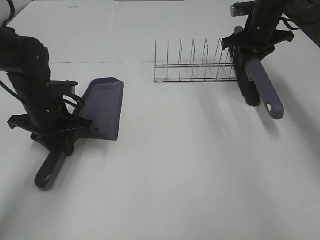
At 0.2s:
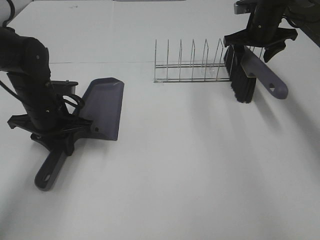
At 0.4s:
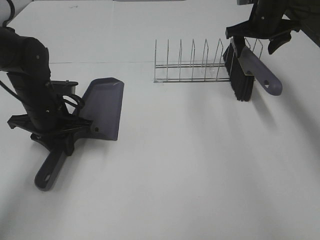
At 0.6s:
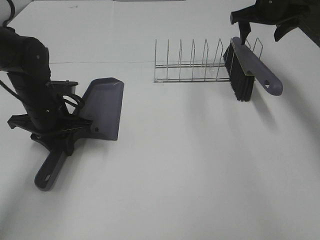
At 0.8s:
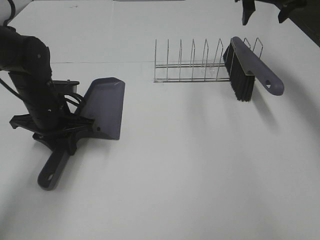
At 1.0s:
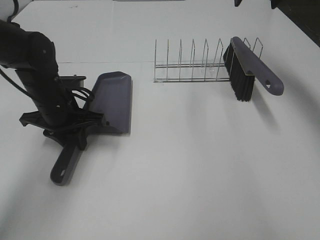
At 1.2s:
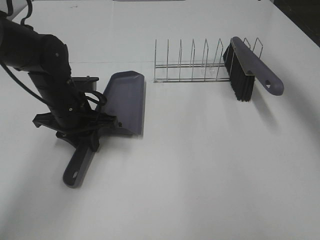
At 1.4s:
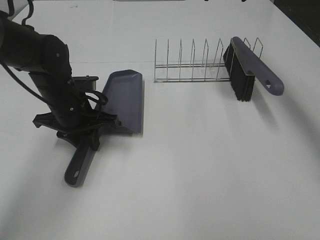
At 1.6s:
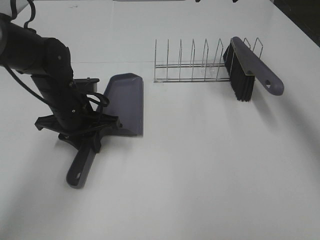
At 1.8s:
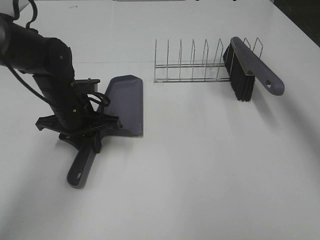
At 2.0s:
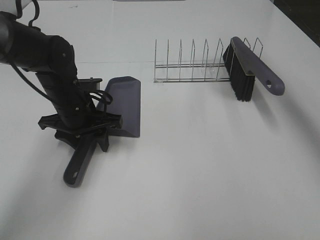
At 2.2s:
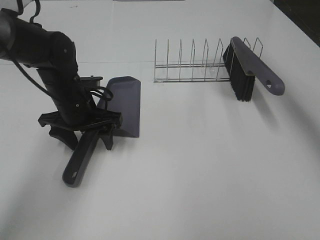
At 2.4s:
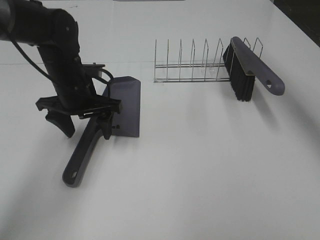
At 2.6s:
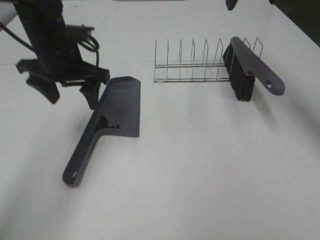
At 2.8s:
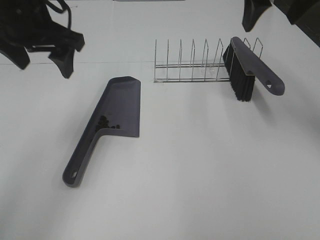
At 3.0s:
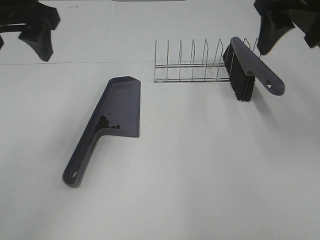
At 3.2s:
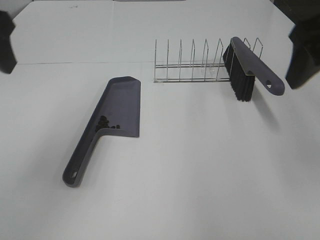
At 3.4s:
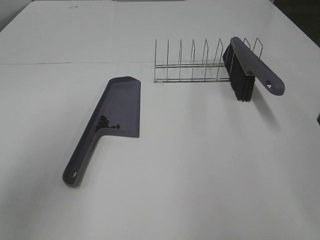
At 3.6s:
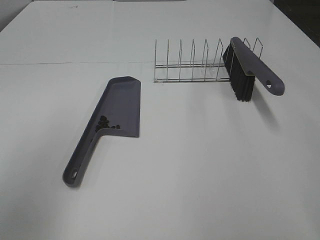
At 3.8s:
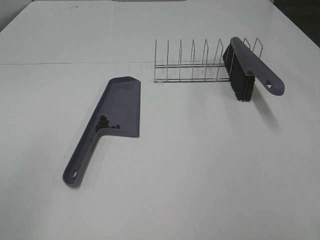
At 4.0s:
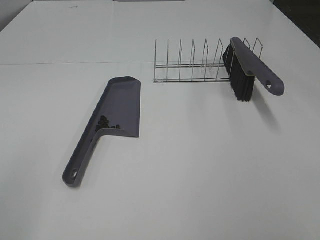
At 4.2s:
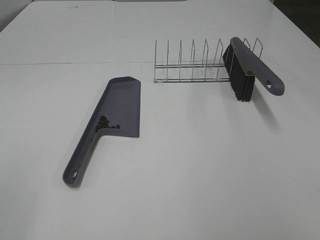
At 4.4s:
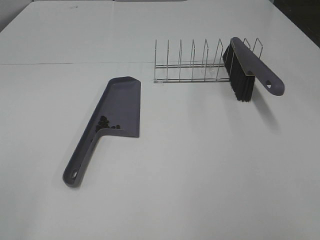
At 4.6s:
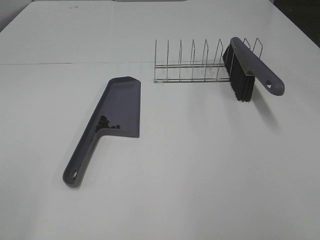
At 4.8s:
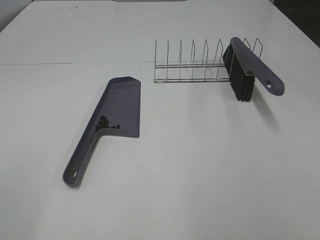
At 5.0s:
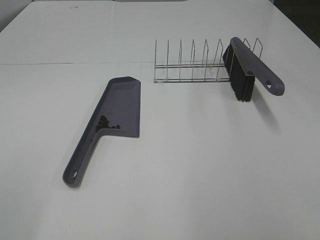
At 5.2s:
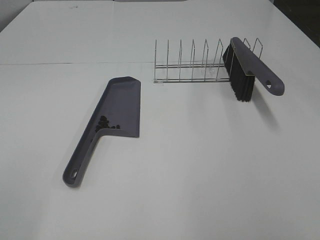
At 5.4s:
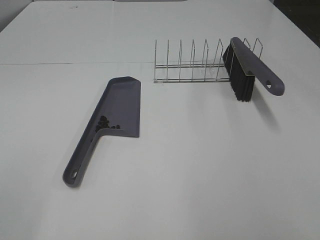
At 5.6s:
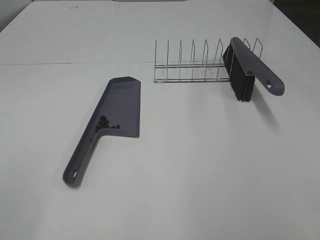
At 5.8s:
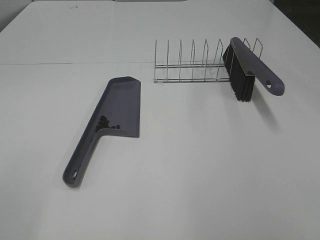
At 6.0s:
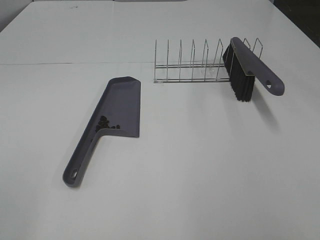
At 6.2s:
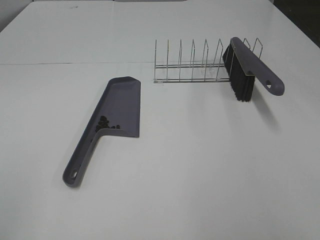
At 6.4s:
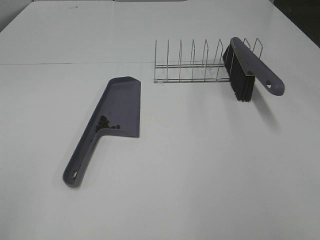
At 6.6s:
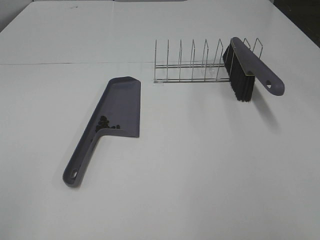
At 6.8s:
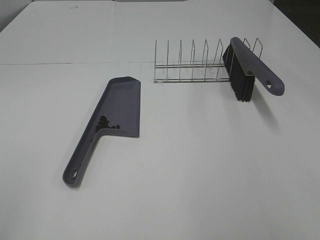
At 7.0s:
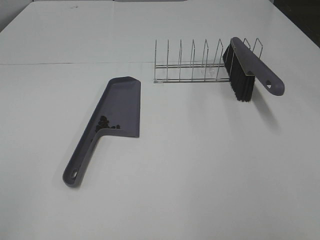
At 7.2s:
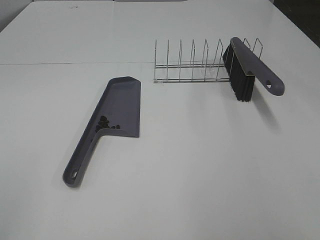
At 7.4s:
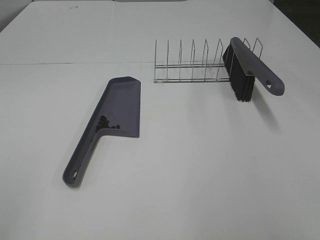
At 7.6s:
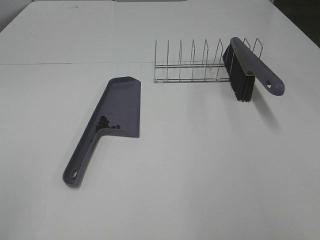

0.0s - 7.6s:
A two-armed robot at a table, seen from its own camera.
Task of the whole recording: Sweep Coffee Bean.
Step, 0.4s - 2.2s: Left hand:place the dustpan on the table.
0.0s - 1.6s: The right gripper shifts some 20 cm upward and to the left, and opens.
1.6s - 3.0s: The left gripper goes roughly 25 cm upward, and opens. The right gripper heads backward, covering approximately 20 cm.
3.0s - 4.6s: The left gripper shifts some 30 cm backward and to the left. The right gripper goes roughly 30 cm backward.

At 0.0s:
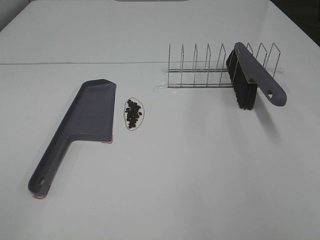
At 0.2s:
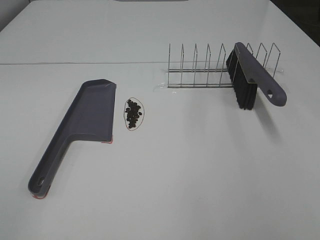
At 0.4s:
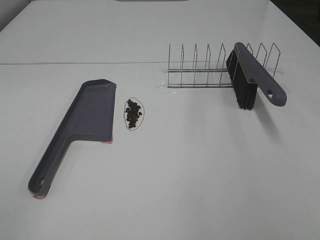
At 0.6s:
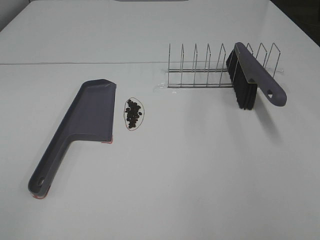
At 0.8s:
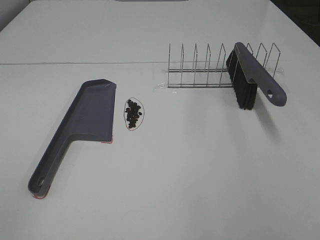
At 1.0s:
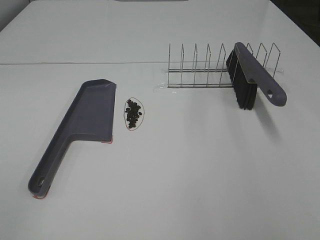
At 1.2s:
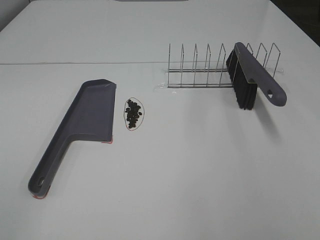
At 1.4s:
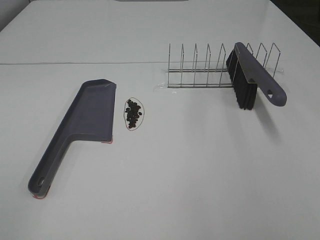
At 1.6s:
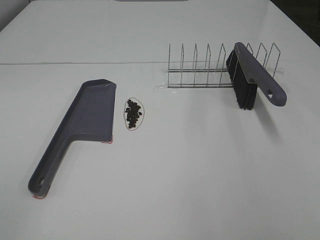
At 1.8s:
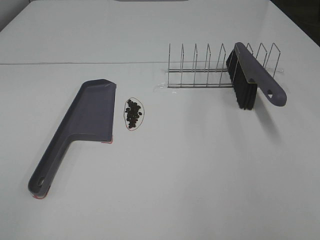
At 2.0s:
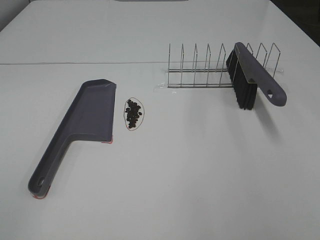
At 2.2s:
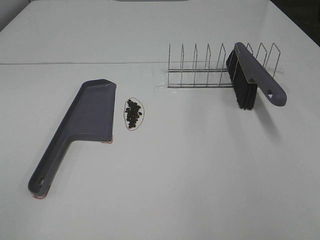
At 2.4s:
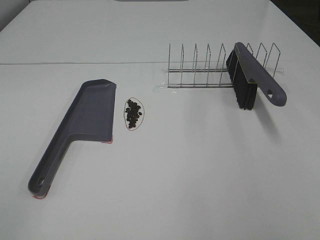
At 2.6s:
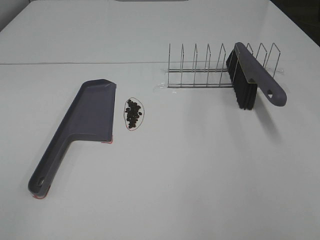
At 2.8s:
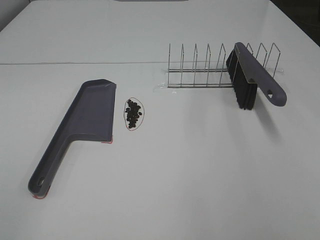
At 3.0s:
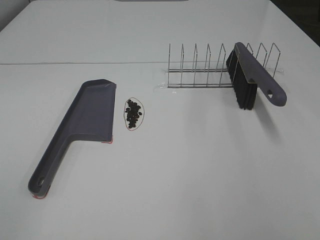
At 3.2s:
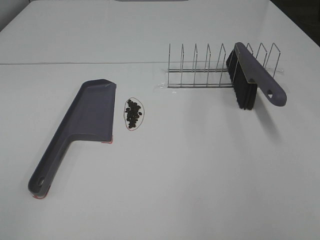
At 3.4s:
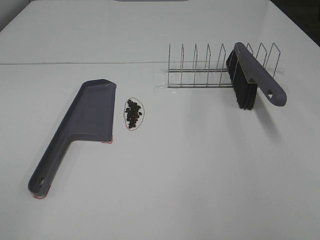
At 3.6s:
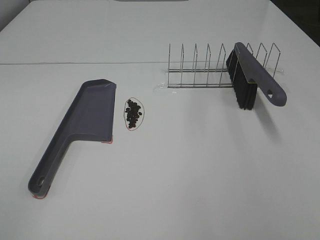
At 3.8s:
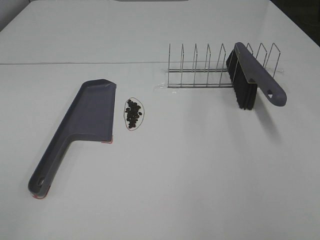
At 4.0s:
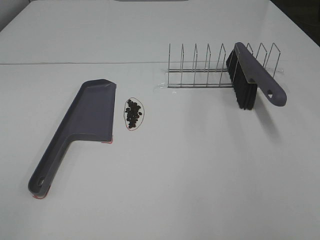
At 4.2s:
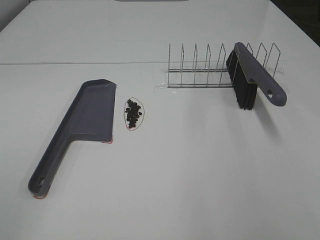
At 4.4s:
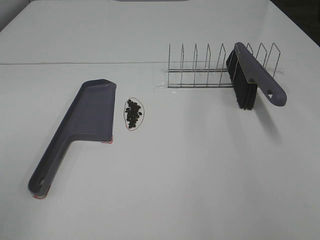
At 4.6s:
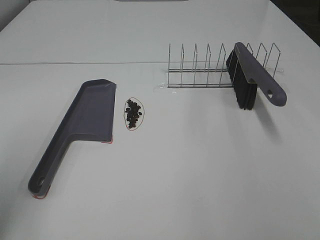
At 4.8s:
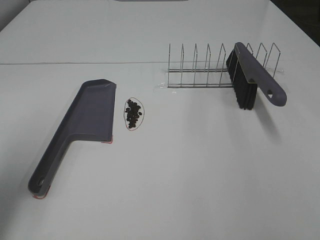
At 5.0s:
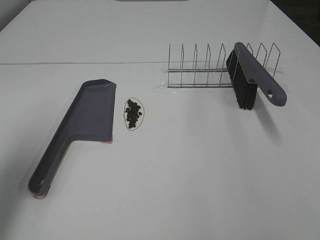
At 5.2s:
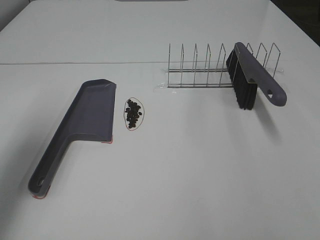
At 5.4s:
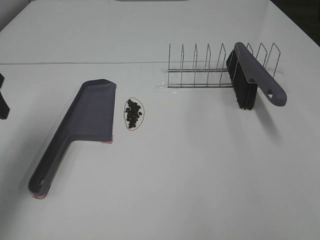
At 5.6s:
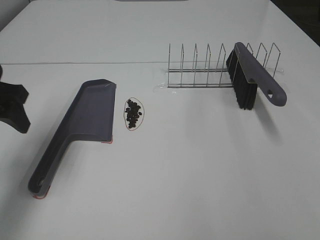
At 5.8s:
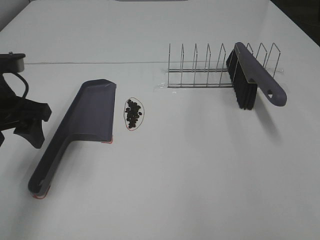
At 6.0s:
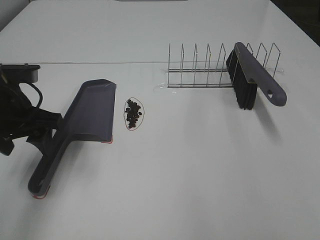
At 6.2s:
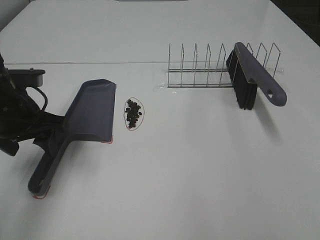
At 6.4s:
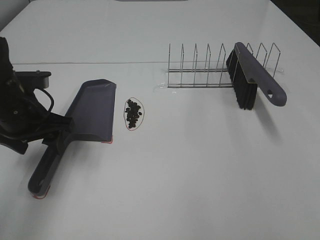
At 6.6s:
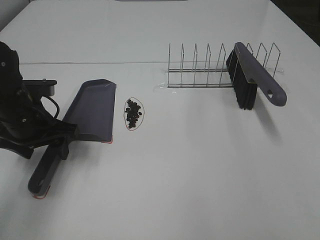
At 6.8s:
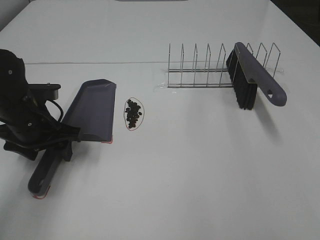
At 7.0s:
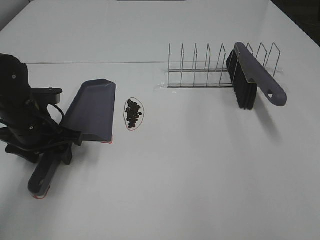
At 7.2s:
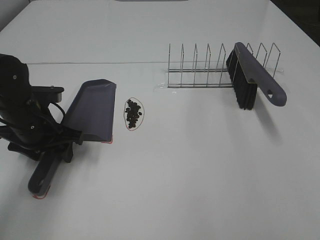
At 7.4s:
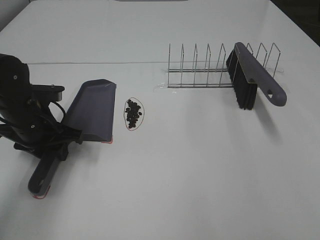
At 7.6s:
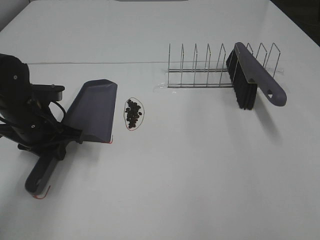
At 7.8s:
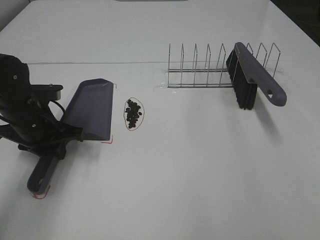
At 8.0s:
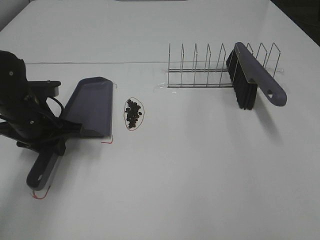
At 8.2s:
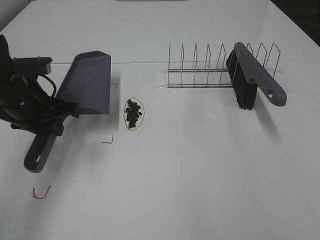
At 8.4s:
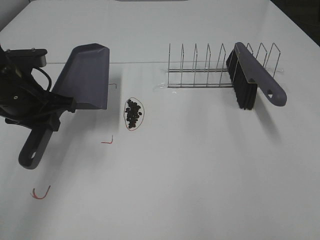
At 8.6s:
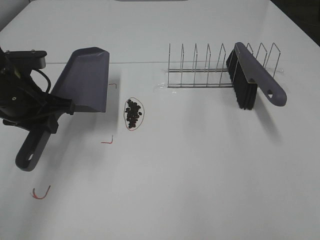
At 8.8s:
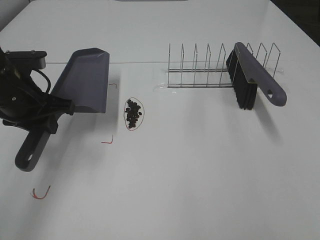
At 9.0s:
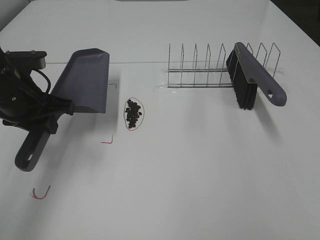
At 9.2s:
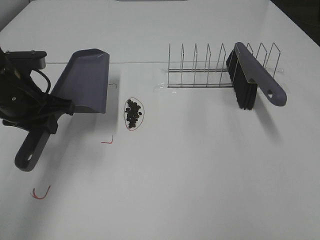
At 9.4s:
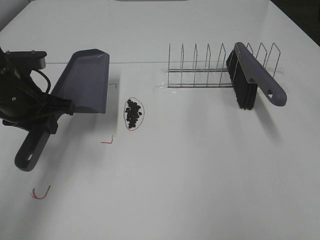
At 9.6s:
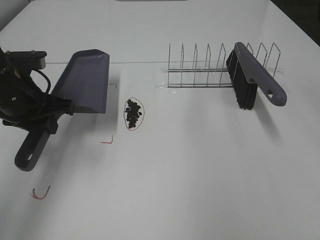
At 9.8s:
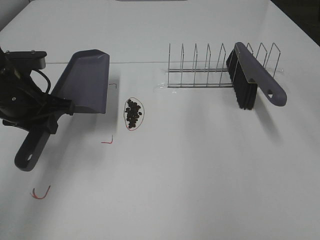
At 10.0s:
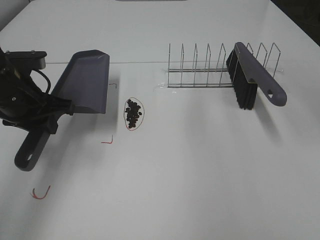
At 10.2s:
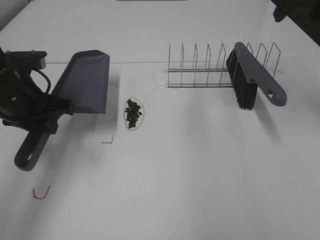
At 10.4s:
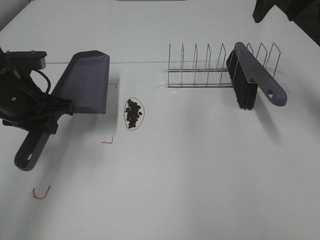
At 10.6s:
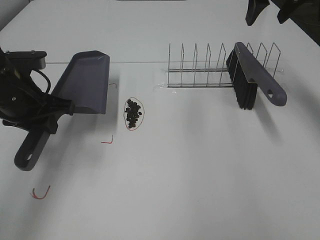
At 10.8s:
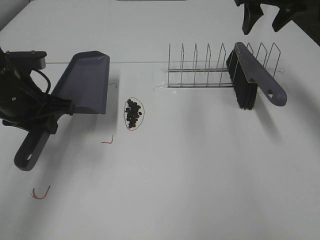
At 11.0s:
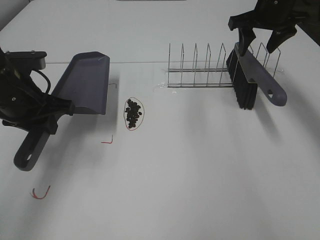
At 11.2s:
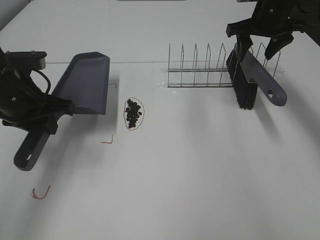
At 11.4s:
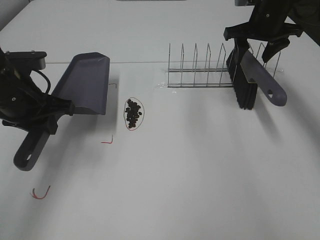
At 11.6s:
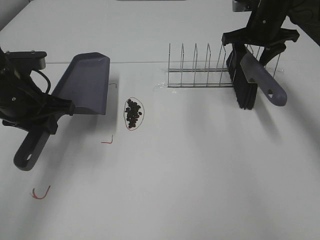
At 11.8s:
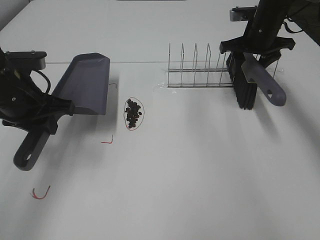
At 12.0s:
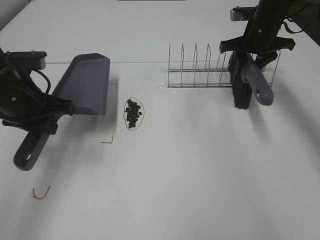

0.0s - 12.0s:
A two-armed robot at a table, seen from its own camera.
Task of the whole recording: Sweep Coffee Bean.
Step, 0.0s - 7.4s: Left hand: grab the dustpan.
0.0s - 3.0s: Both grippers stay put.
4.4s - 6.0s: The left gripper moves forward and downward, approximately 25 cm.
6.0s - 7.6s: The left gripper goes approximately 10 cm downward, and closes up.
7.6s - 9.0s: The right gripper travels forward by approximately 5 cm. Meanwhile the left gripper shifts approximately 5 cm upward.
9.0s - 10.4s: The right gripper goes some 35 cm forward.
10.4s - 12.0s: The right gripper shifts roughly 20 cm downward and forward, and closes up.

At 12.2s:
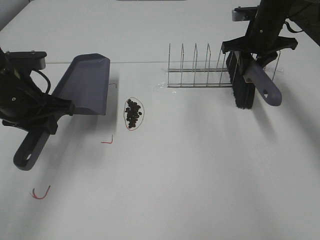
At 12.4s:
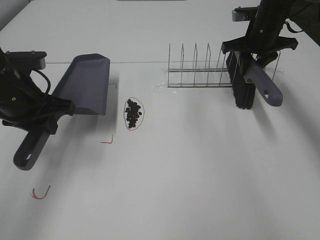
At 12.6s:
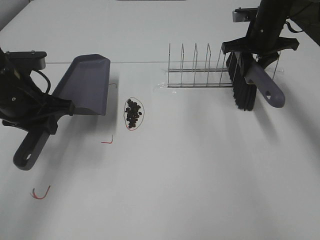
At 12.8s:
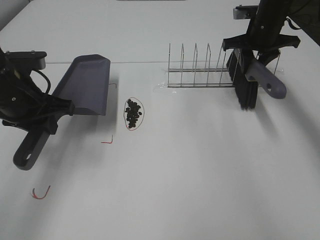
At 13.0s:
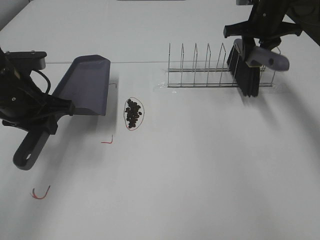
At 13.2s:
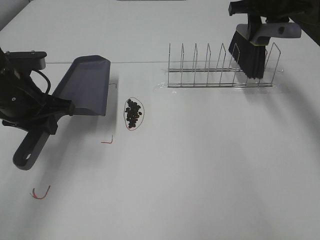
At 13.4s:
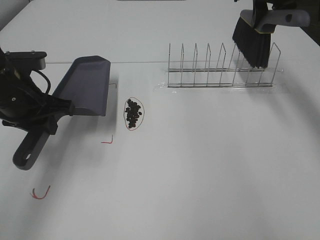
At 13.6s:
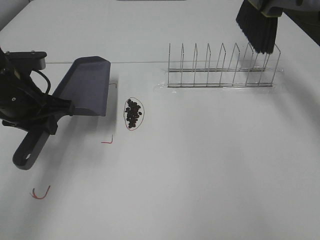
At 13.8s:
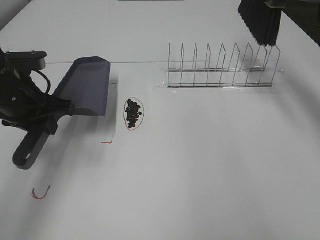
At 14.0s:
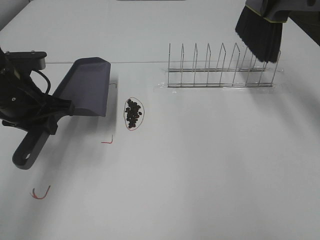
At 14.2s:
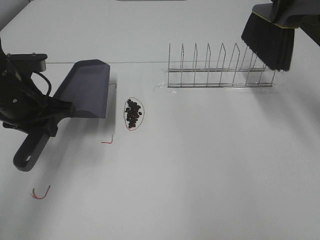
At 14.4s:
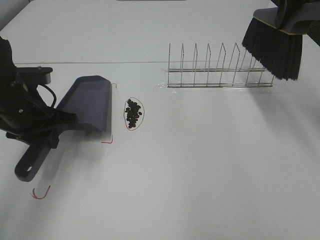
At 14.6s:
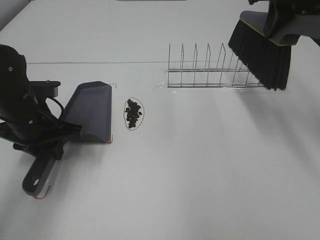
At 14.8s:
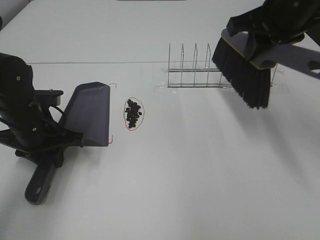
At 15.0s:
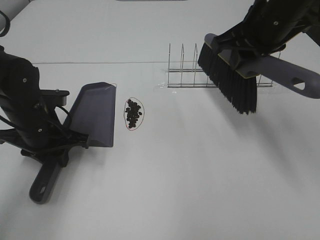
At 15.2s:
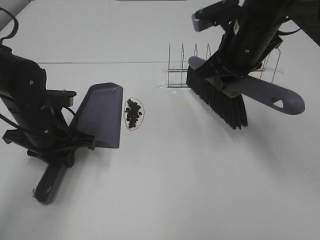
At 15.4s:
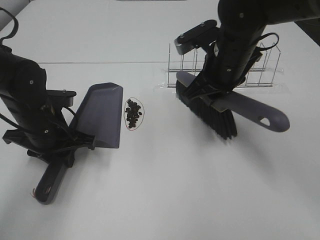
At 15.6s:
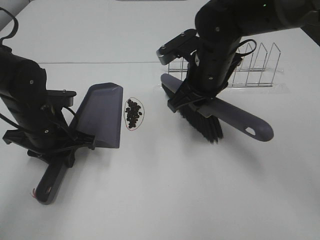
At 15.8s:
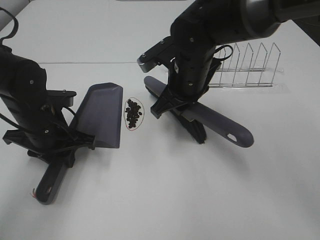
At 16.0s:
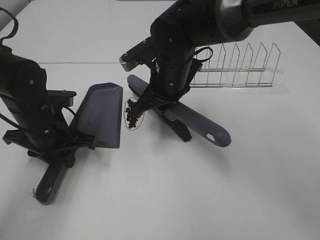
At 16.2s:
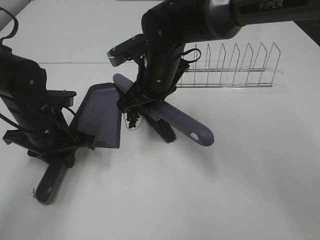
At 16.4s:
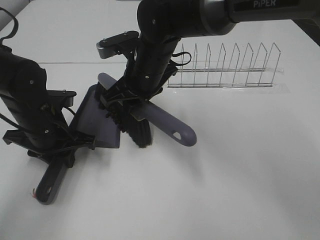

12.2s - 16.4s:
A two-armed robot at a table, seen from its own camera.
Task of the whole recording: Sweep Coffee Bean.
Step, 12.2s - 15.4s: Left hand: move the dustpan to the left side of the coffee beans.
12.2s - 13.6s: The right gripper heads upward, covering about 15 cm.
13.6s - 15.0s: The right gripper is displaced backward, to the left and downward by about 15 cm. Meanwhile the left gripper shifts some 5 cm downward.
15.0s - 16.4s: The right gripper travels to the left and downward by some 20 cm.
